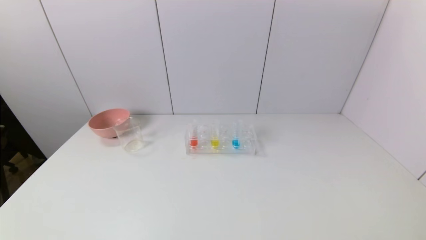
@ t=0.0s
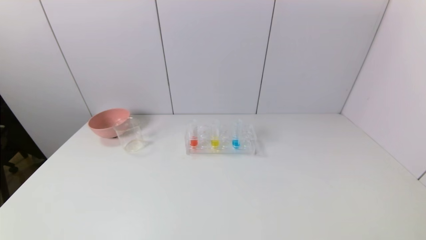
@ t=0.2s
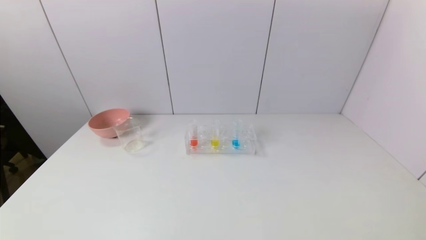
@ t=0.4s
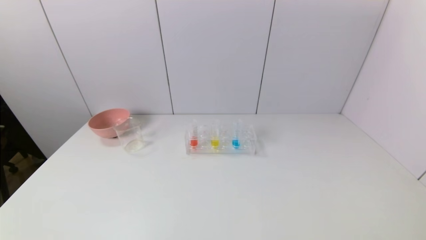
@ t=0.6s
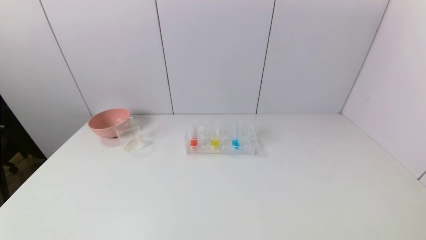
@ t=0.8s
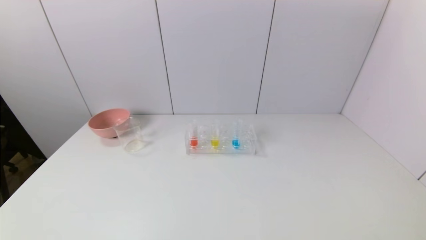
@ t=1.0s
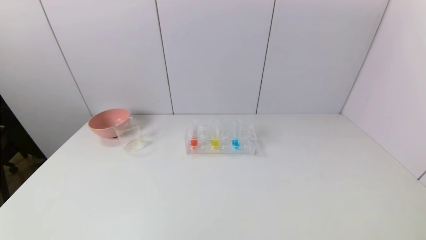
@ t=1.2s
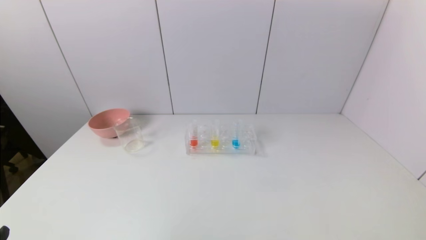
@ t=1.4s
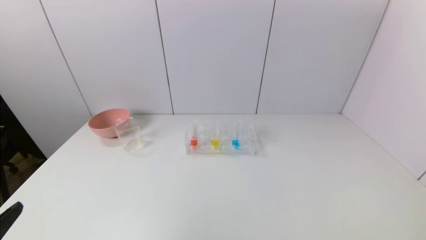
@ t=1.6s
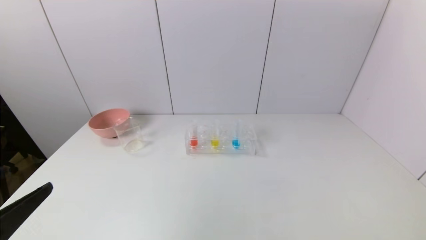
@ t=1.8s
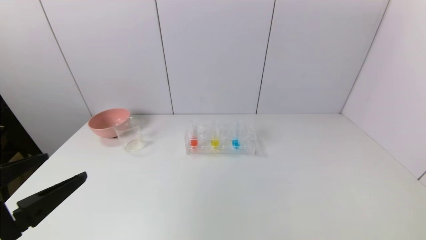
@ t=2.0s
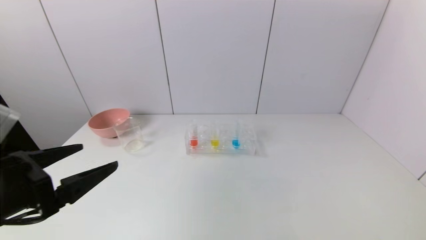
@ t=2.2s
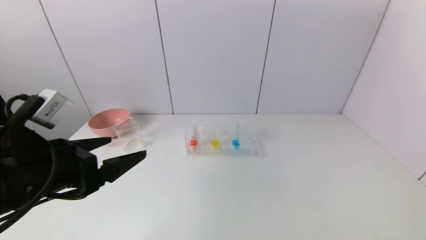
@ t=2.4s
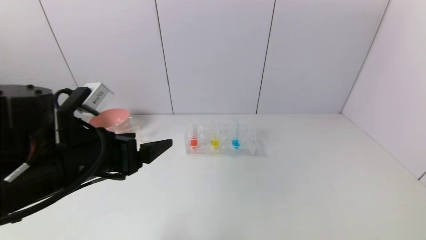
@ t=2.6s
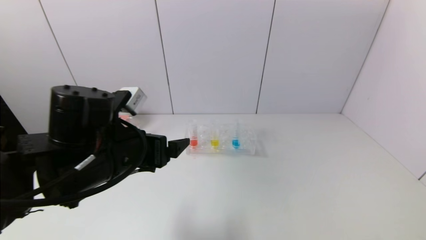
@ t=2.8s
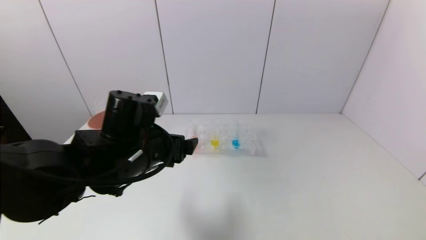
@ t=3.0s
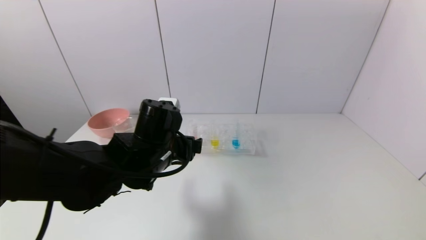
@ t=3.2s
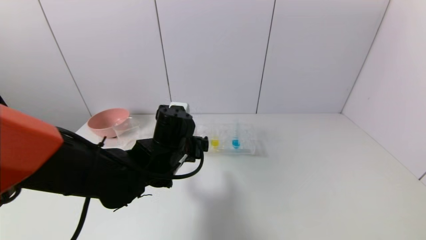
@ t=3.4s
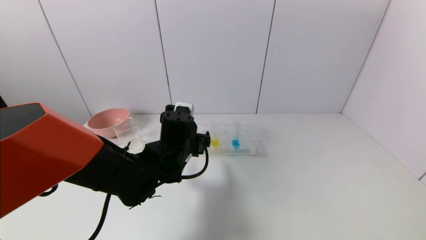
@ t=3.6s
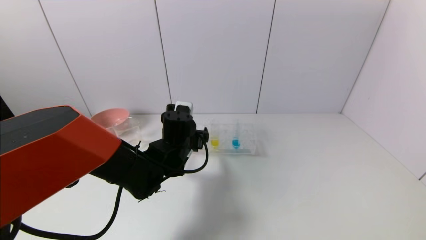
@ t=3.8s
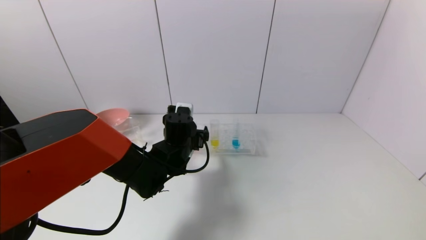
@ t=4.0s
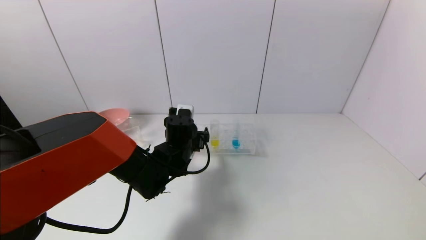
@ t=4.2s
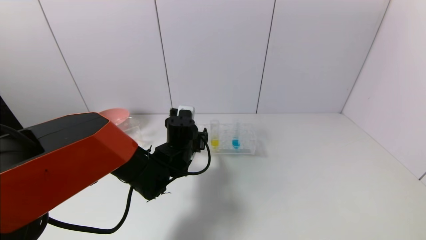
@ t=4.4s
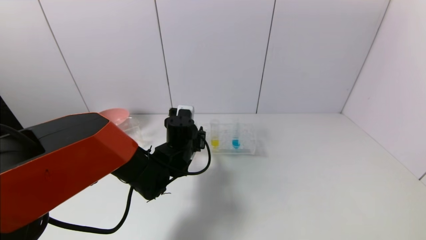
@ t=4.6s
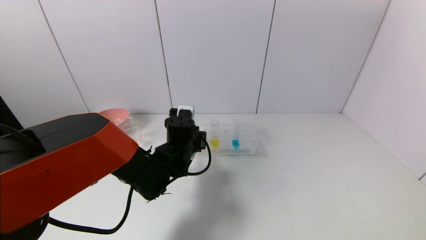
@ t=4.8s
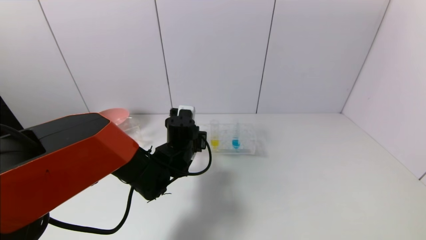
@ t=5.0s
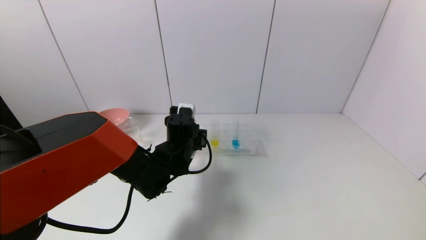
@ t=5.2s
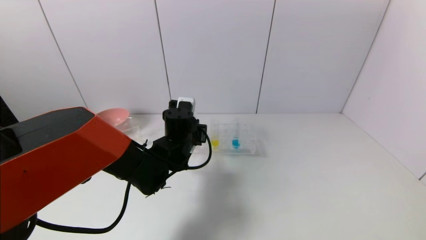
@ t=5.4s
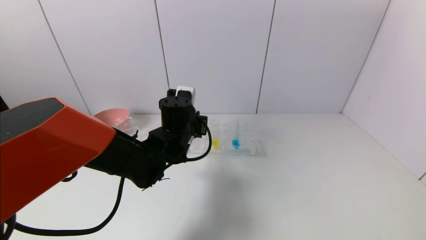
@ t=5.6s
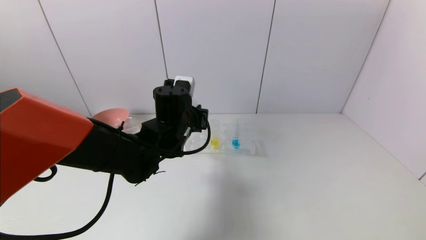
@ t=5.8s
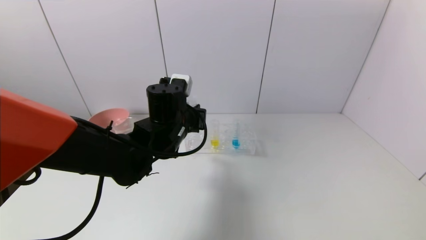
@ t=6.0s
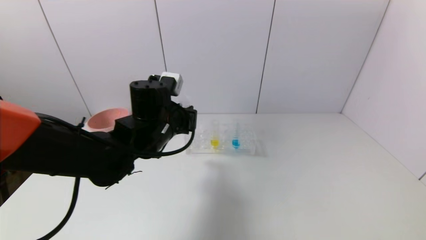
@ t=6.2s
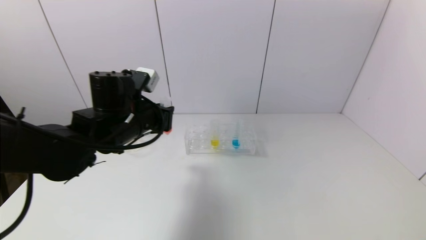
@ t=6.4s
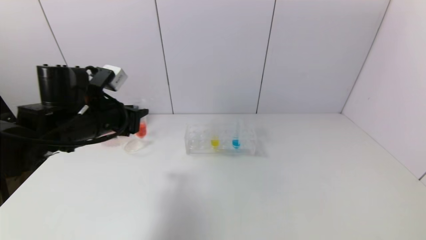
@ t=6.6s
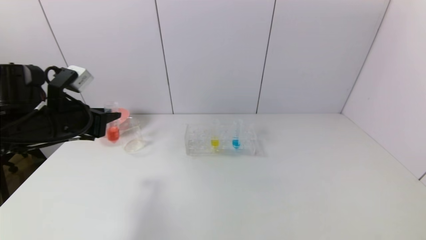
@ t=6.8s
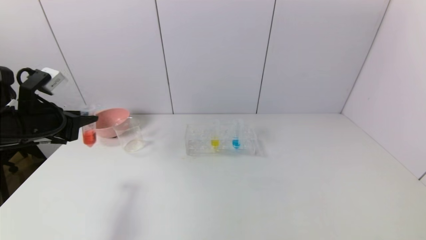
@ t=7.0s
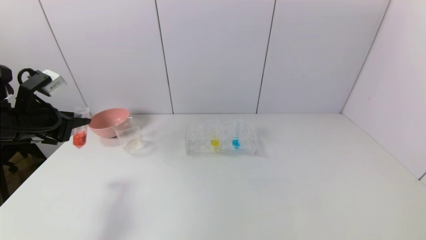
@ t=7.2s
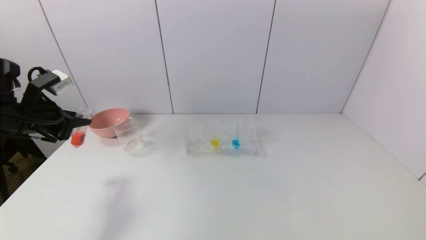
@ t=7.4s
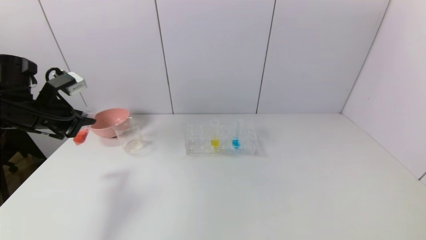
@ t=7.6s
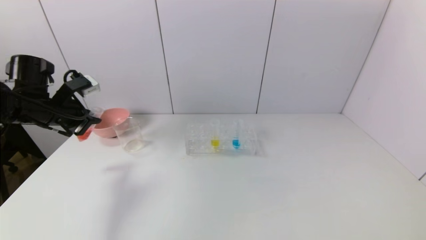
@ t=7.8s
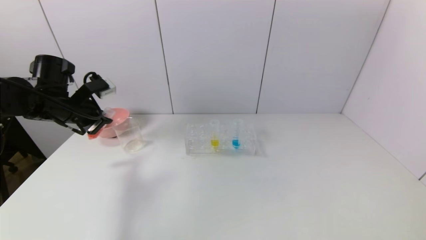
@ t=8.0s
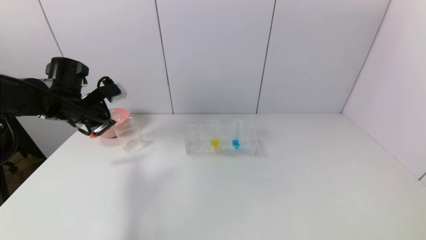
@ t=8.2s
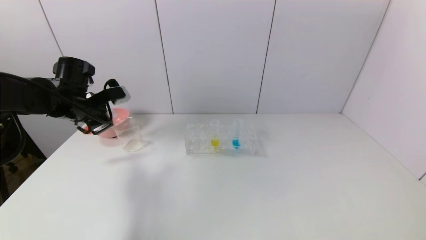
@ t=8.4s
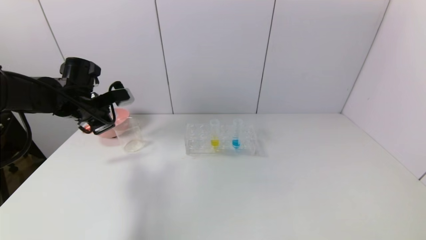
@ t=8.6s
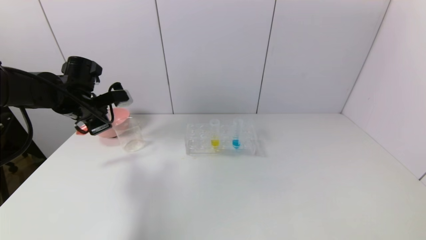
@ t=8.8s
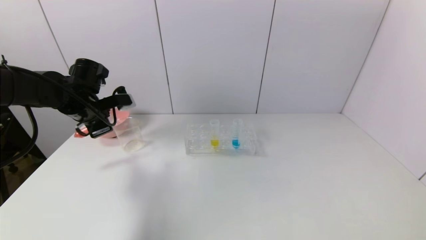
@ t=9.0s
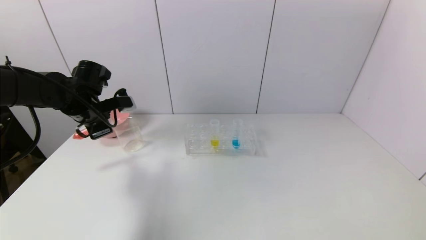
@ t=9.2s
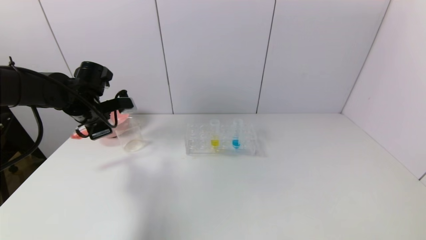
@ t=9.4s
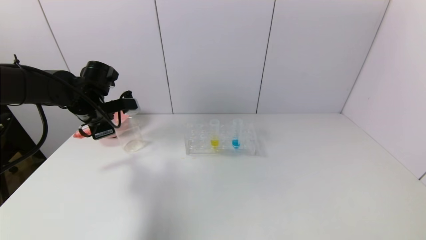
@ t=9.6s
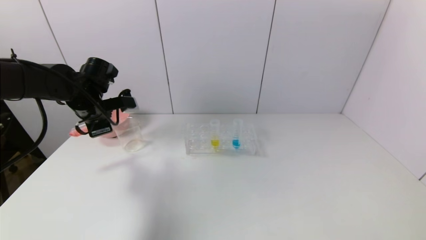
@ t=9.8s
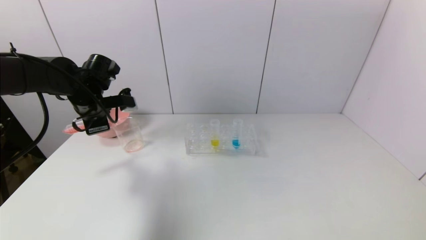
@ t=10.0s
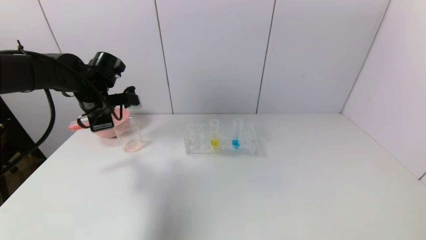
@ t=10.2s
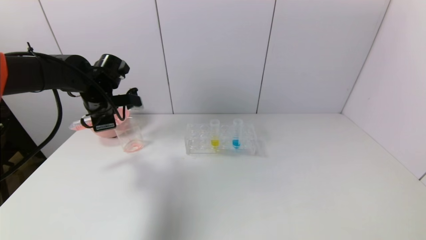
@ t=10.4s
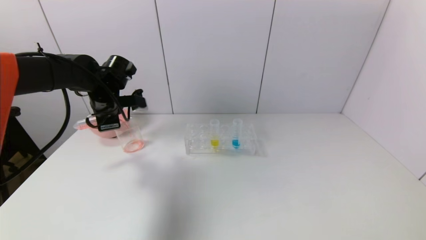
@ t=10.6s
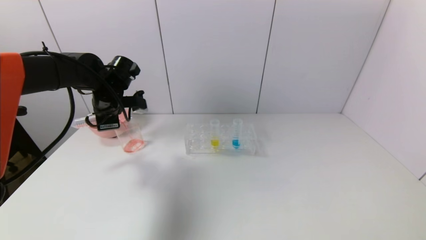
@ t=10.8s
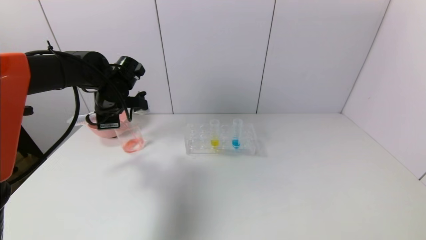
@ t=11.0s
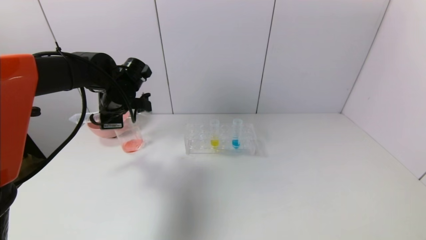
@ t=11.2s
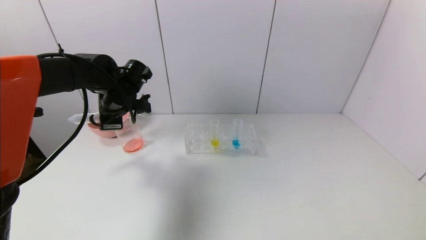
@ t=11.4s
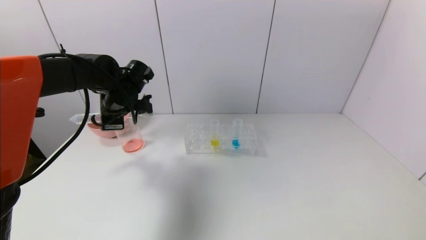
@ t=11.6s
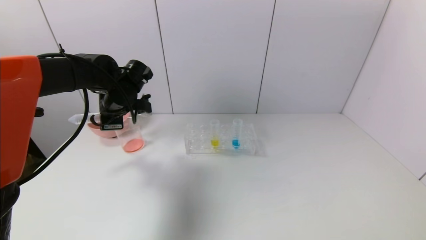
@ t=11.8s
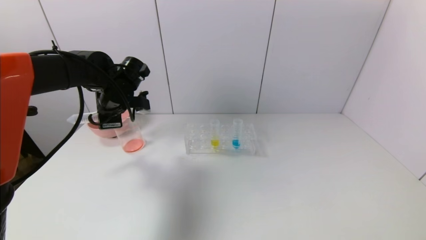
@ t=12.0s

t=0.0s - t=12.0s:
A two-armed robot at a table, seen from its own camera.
Task of the whole recording: pick up the test tube with yellow pigment and the test tube with red pigment by grippers and pour them into the beaker.
Step, t=0.0s - t=5.0s: Grasp the red reagent with the left gripper.
Step, t=5.2s - t=11.4s: Pour the red reagent into the graduated cylinder with the left gripper.
t=1.6s - t=3.0s: The left gripper goes roughly 30 cm forward and to the right.
t=3.0s - t=4.4s: The left gripper goes roughly 15 cm forward and downward.
t=4.4s - t=6.0s: The left gripper travels upward by some 10 cm, and closes up.
t=6.0s - t=7.6s: The left gripper is displaced to the left by approximately 25 cm.
t=7.6s - t=9.0s: The left gripper heads to the right and forward, covering about 10 cm.
t=9.0s - t=10.4s: The grippers move only a little.
t=10.4s - t=12.0s: There are only small adjustments of the grippers.

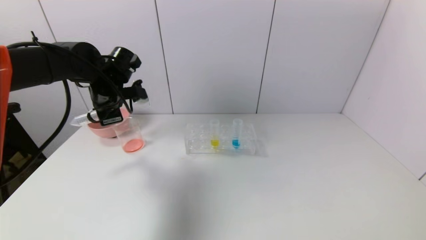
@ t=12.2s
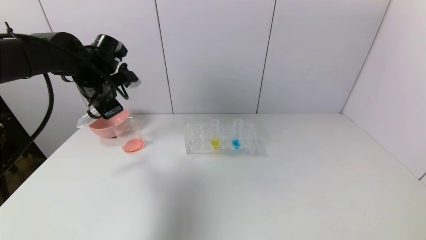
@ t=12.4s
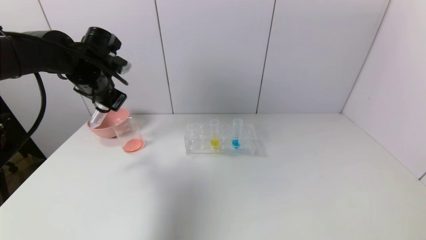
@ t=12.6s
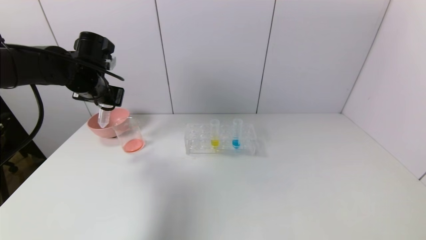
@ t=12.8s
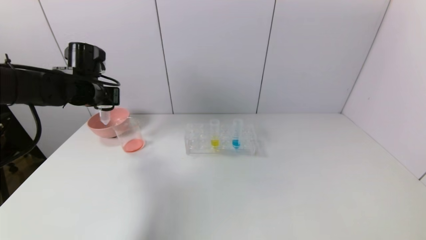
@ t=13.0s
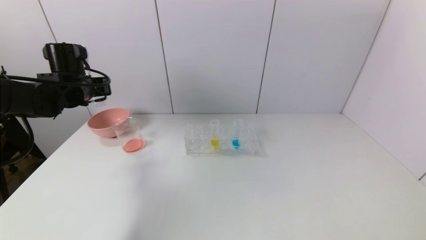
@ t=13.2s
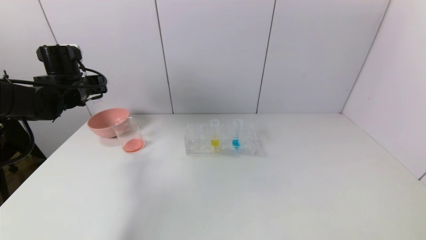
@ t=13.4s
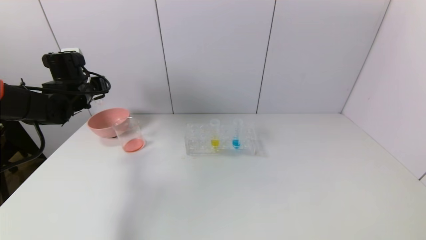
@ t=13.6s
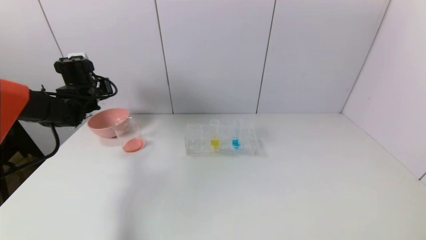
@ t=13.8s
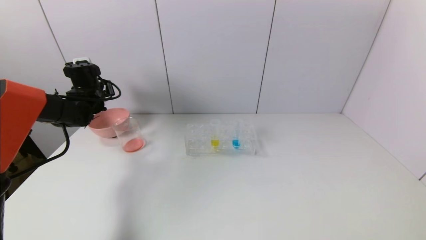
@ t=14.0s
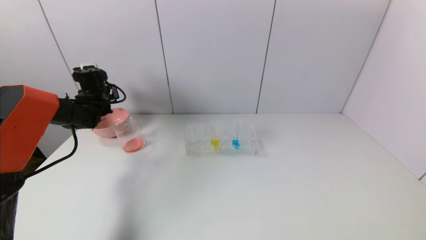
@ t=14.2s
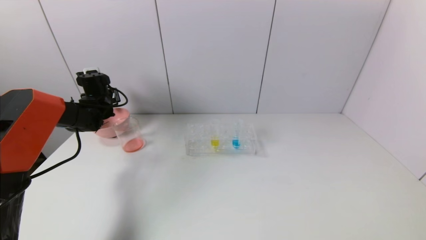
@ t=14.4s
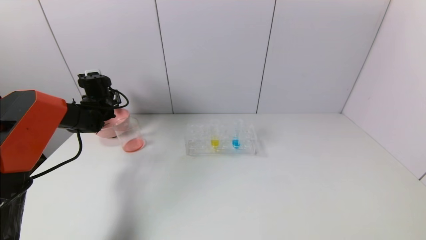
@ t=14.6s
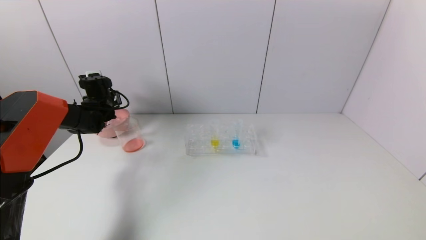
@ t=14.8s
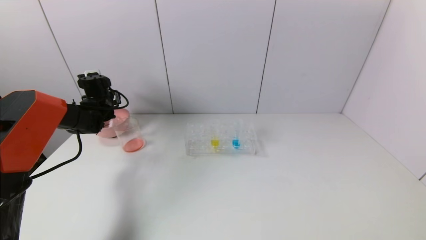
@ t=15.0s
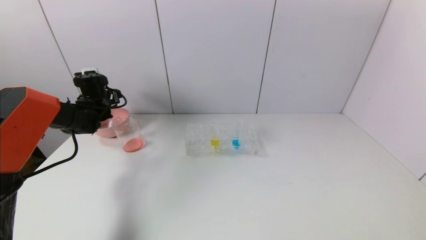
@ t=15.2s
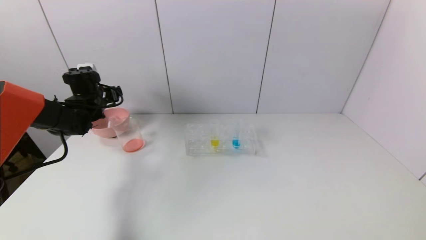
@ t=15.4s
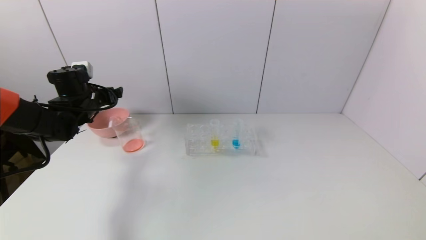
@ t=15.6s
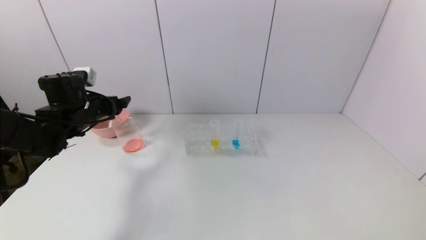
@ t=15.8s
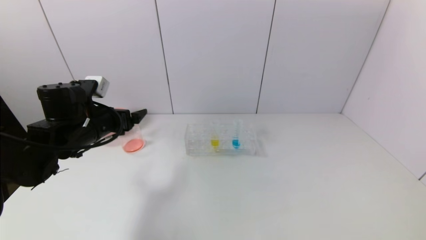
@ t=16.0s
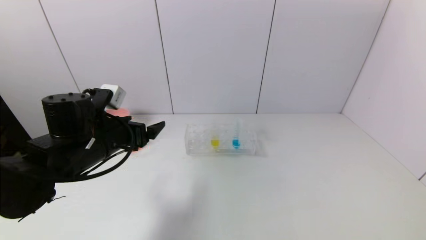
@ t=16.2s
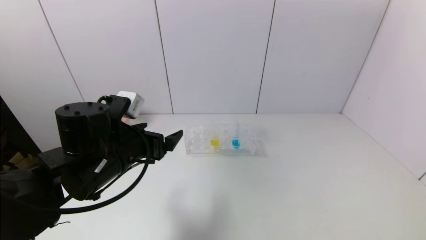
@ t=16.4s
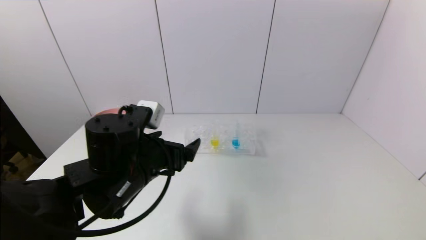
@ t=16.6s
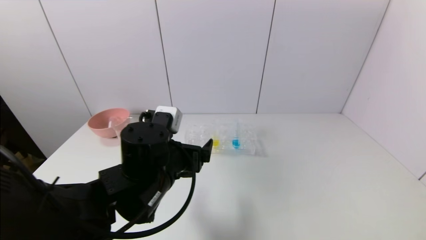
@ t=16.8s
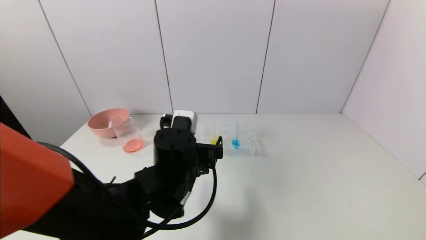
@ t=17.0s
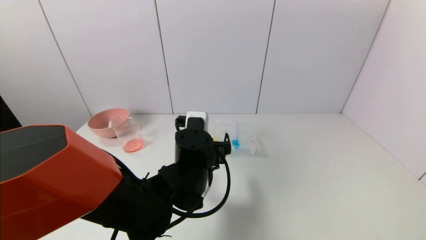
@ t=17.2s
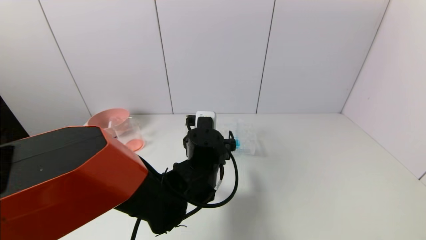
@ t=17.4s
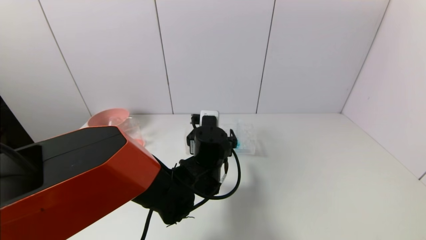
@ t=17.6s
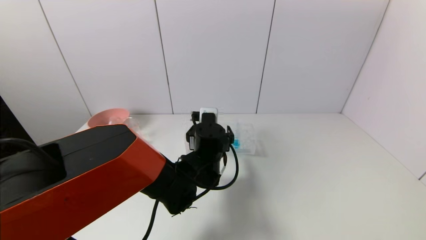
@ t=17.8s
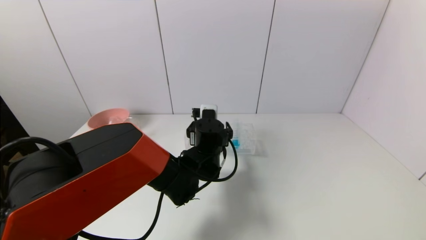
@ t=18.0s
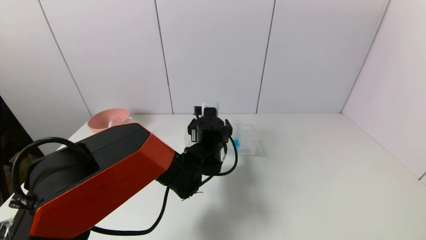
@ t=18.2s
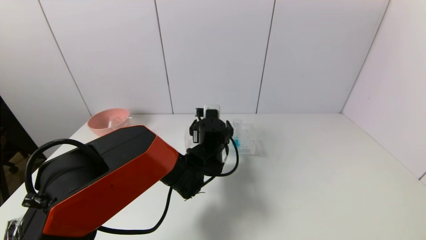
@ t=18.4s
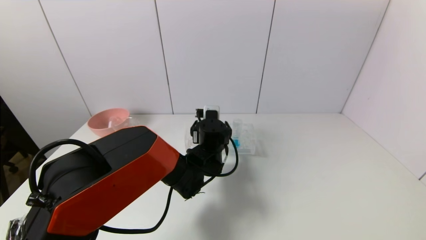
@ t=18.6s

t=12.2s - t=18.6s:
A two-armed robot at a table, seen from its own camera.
Task of the whole recording: pick up the test tube with yellow pigment and the test tube with red pigment by grippers and pour them into the beaker.
Step, t=12.2s - t=14.8s: Place the test tube into the pink bowl with the left gripper.
t=12.2s - t=13.8s: The left gripper goes about 10 cm to the left and forward.
t=13.8s - t=15.4s: The left gripper opens.
t=15.4s - t=17.0s: The left gripper goes about 35 cm to the right and backward.
t=17.0s - t=18.6s: The left gripper is displaced forward, to the right and downward by approximately 15 cm.
